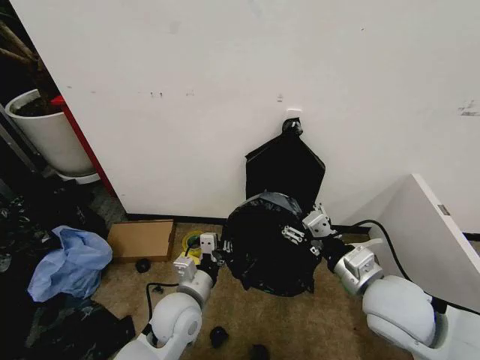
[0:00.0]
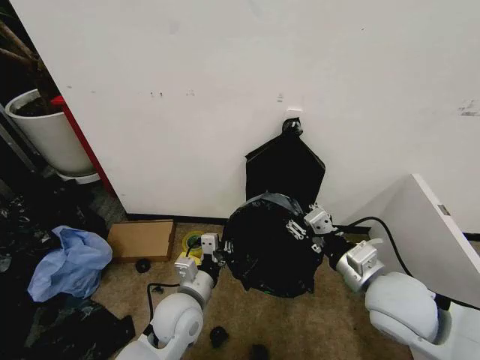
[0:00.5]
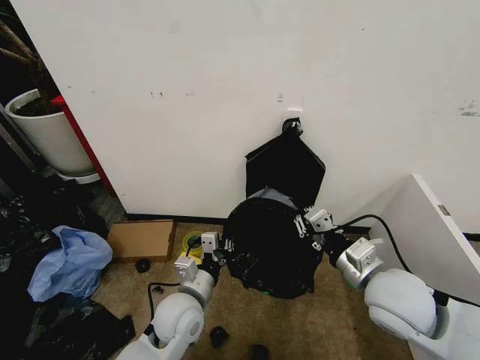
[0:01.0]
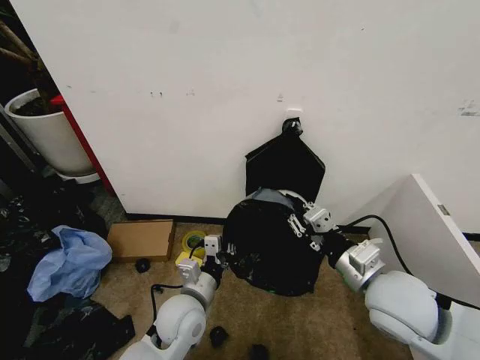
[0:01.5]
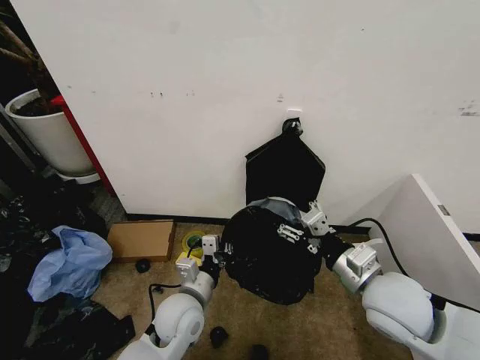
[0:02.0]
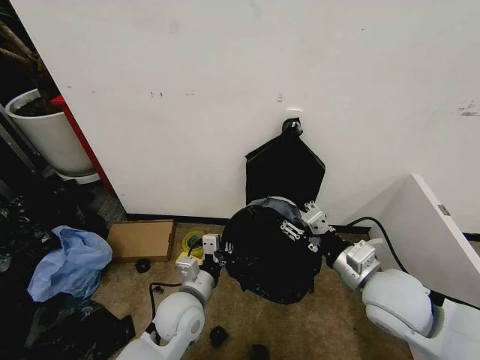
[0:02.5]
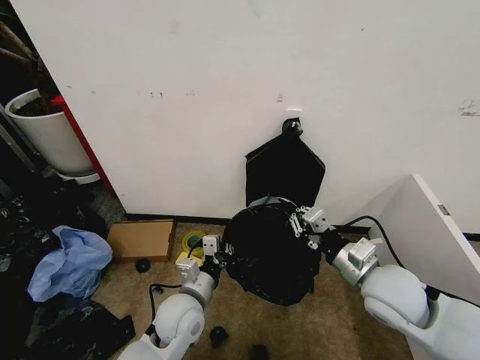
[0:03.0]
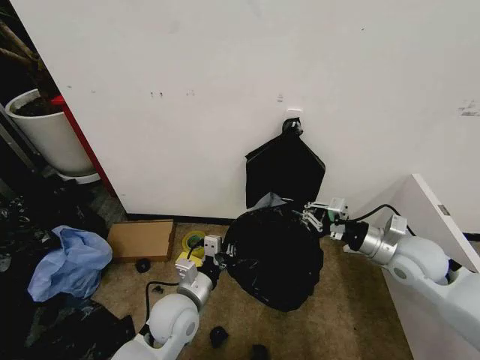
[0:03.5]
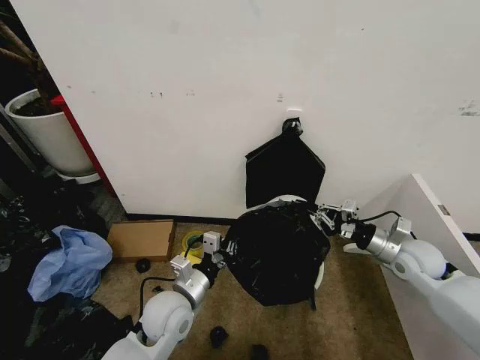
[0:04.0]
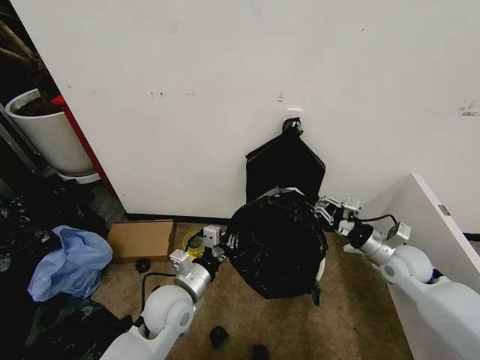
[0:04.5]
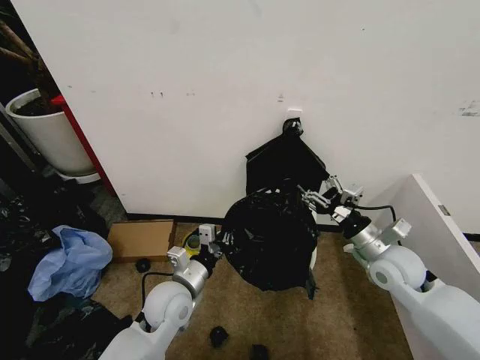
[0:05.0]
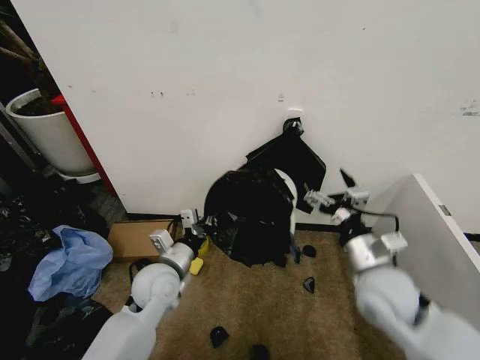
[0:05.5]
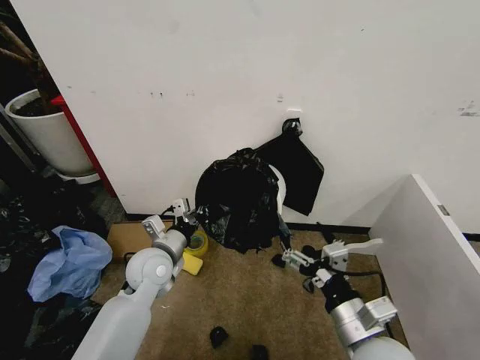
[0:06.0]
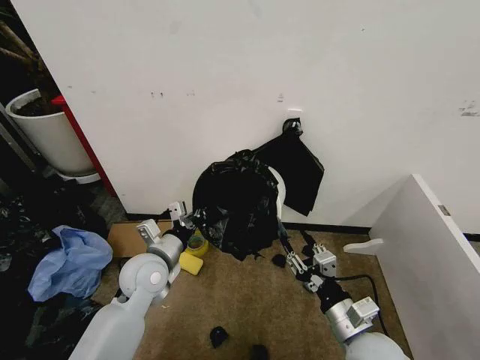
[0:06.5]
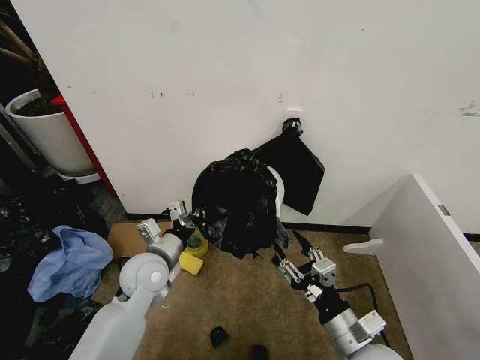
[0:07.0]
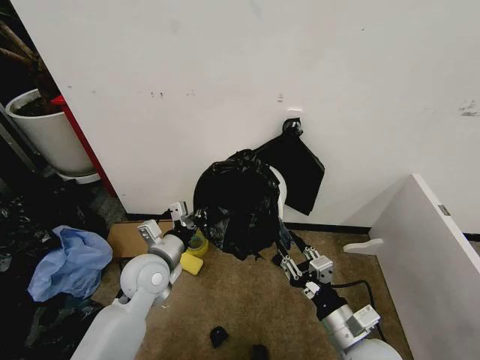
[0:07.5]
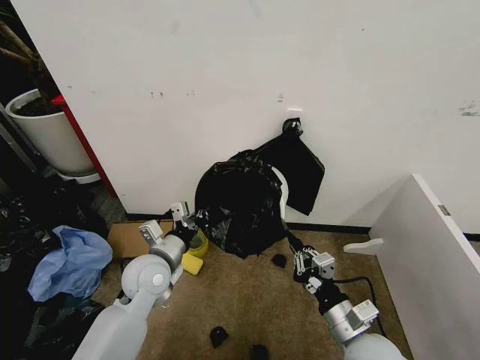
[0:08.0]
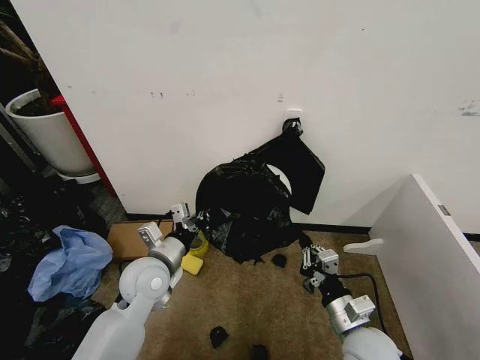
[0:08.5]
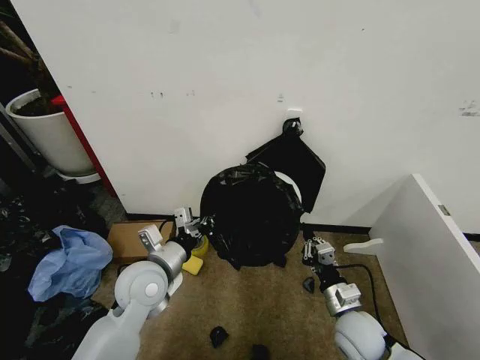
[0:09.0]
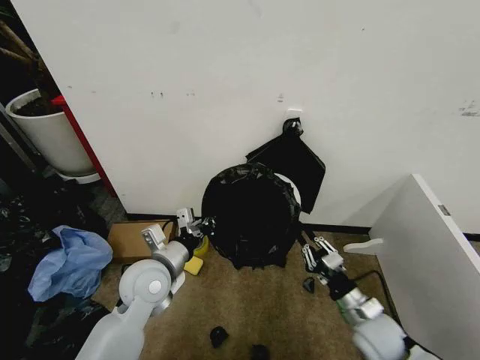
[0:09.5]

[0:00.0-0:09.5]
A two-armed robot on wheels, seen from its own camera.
Task of the whole recording: Place the garbage bag over the trash bin.
0:00.0 to 0:02.0: The right gripper closes, then opens again.
0:02.0 to 0:04.0: The right gripper shifts roughly 20 cm to the right, forward and downward, and closes its fingers.
0:04.0 to 0:05.5: The right gripper heads to the left and backward, covering roughly 15 cm, and opens up. The left gripper shifts by approximately 5 cm.
0:05.5 to 0:07.5: The right gripper heads backward and downward, covering about 15 cm, and closes its fingers.
0:07.5 to 0:09.5: The right gripper goes roughly 10 cm downward, forward and to the right.

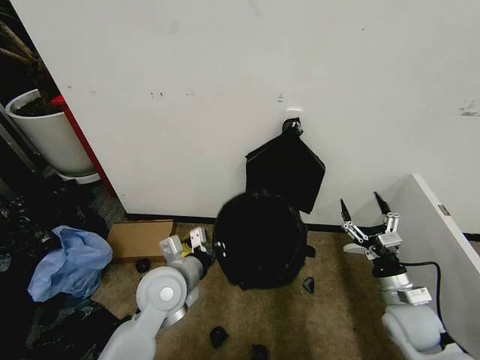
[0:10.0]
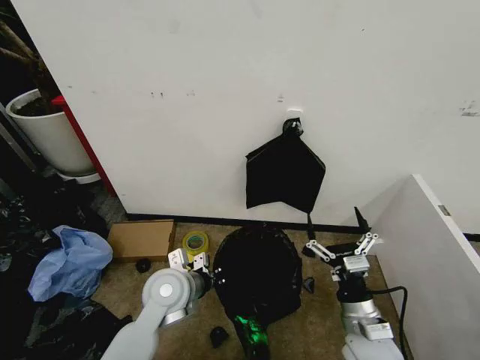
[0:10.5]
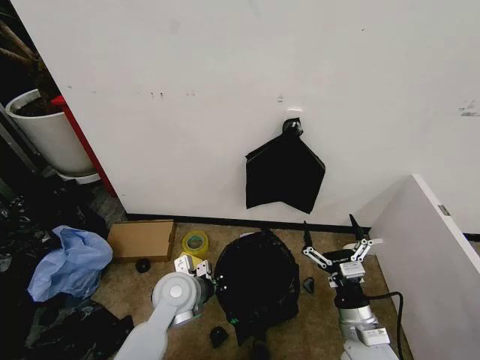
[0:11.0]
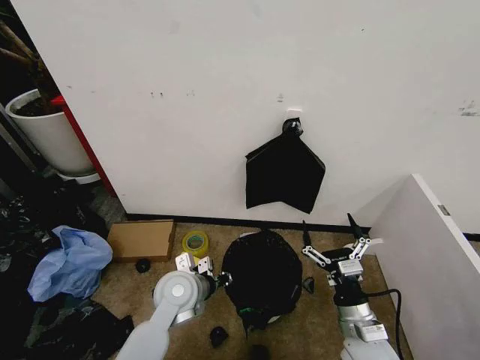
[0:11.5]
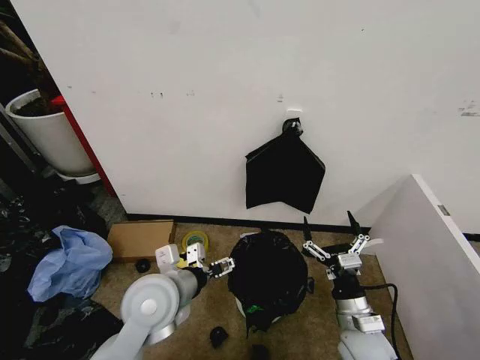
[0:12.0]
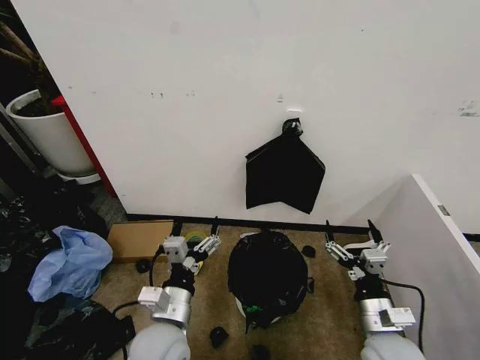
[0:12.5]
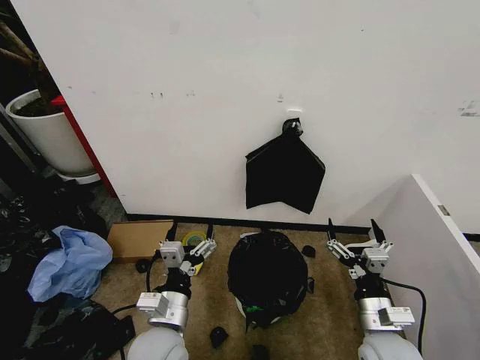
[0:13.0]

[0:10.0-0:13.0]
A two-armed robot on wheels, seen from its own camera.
Task of the whole recording: Place the garbage bag over the trash bin.
0:10.0 to 0:11.5: The left gripper shifts roughly 5 cm downward. Meanwhile the right gripper shifts some 15 cm to the left and backward.
0:11.5 to 0:13.0: The left gripper is displaced backward by some 10 cm, and opens up.
